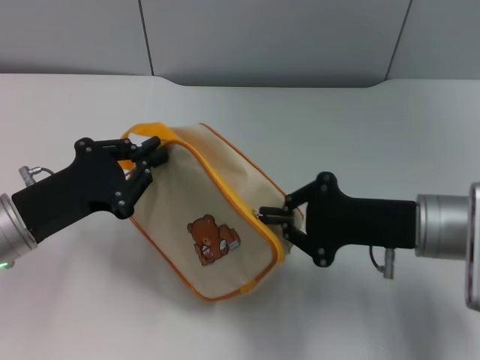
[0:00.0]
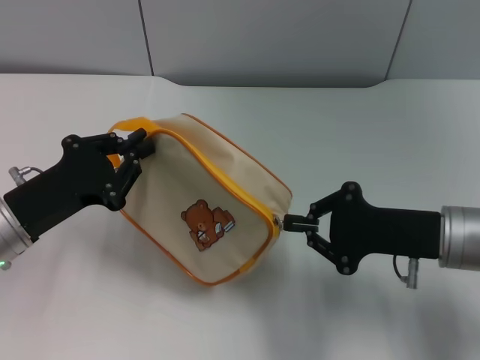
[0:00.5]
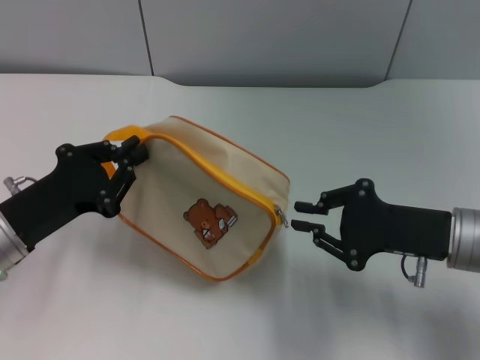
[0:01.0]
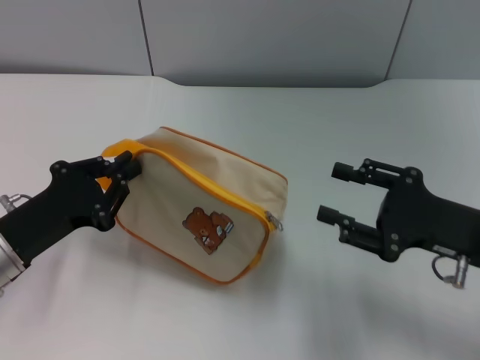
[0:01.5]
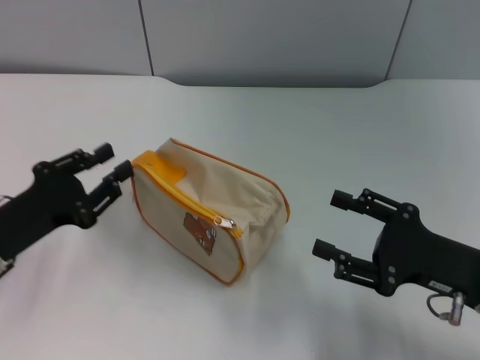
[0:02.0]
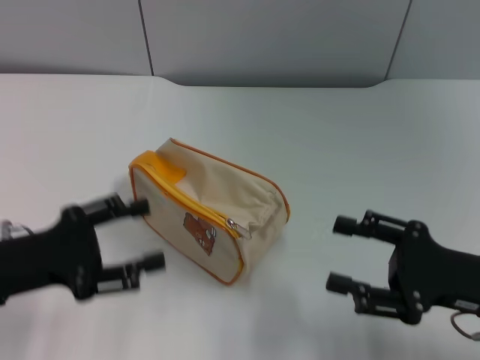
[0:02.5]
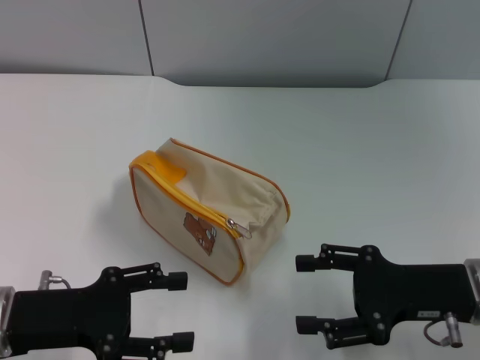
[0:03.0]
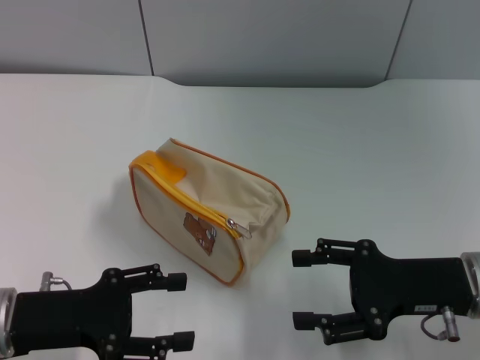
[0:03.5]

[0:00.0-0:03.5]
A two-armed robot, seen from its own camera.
0:00.0 to 0:02.0: The right gripper is displaced backward and to the right by some 10 cm, and opens.
0:02.0 to 0:03.5: The left gripper opens up.

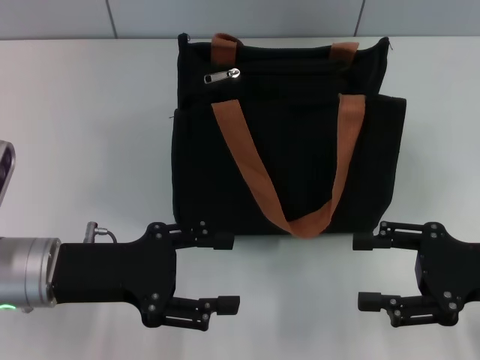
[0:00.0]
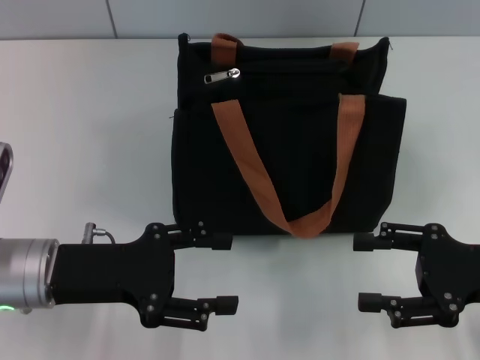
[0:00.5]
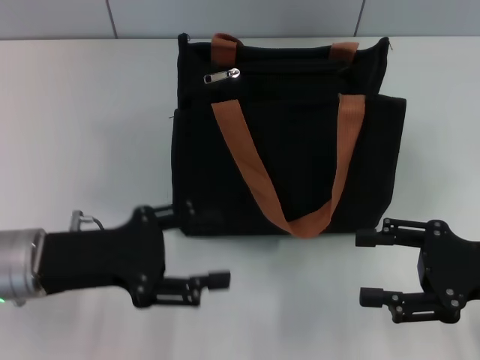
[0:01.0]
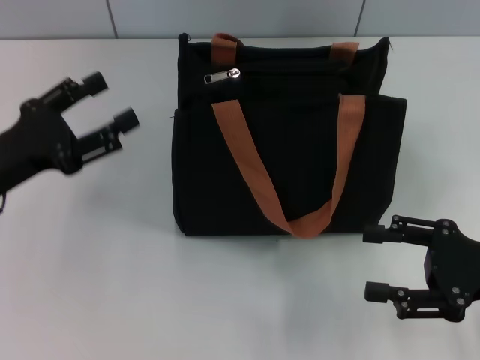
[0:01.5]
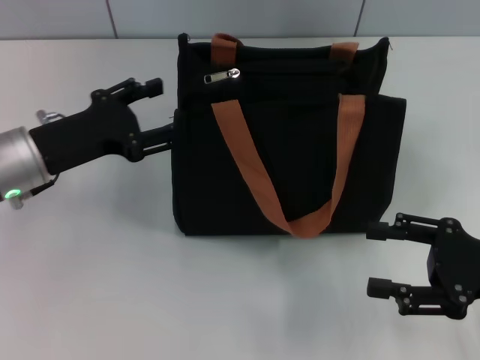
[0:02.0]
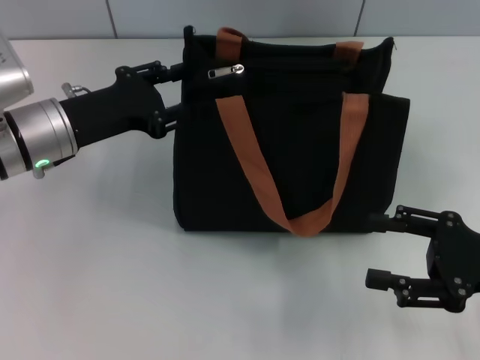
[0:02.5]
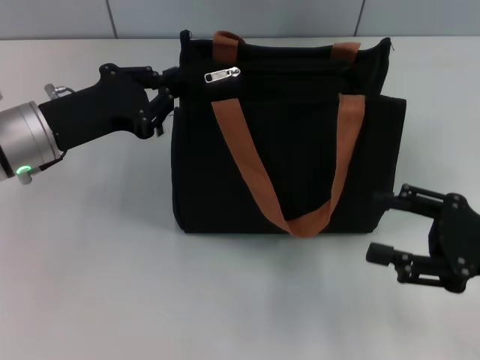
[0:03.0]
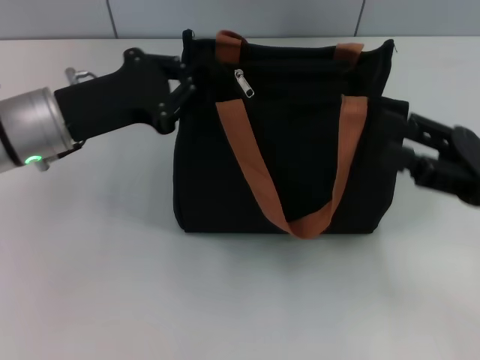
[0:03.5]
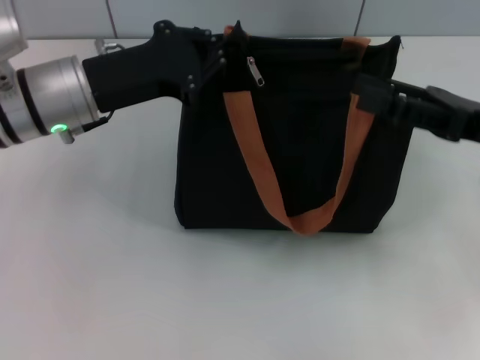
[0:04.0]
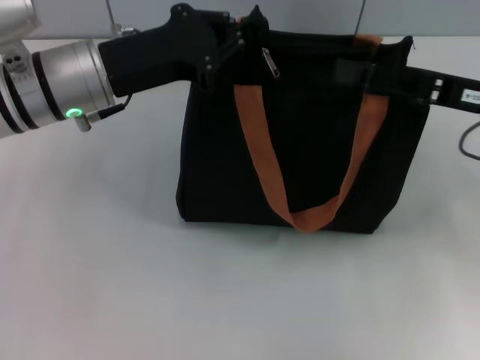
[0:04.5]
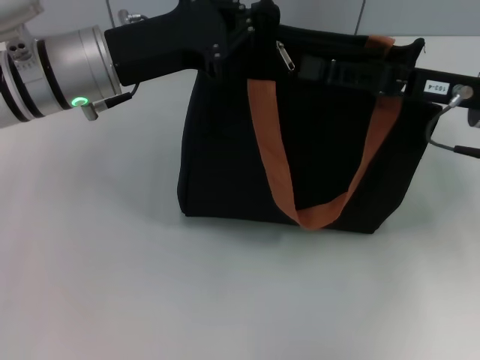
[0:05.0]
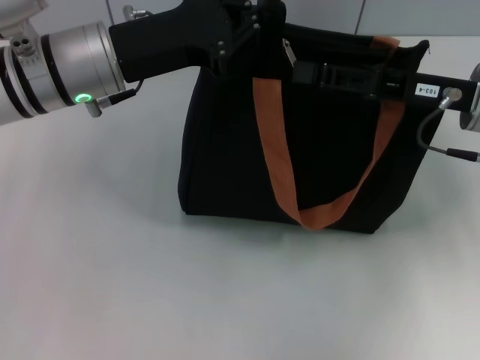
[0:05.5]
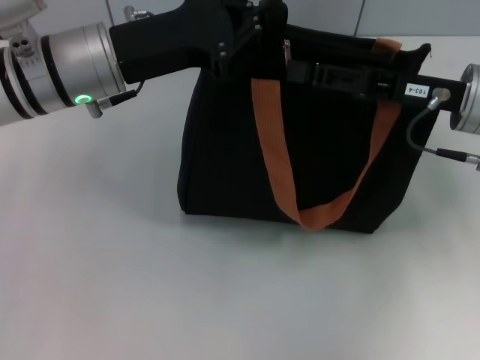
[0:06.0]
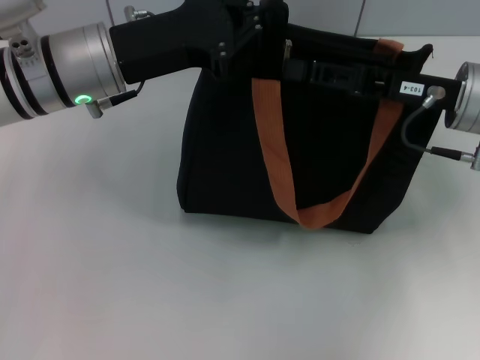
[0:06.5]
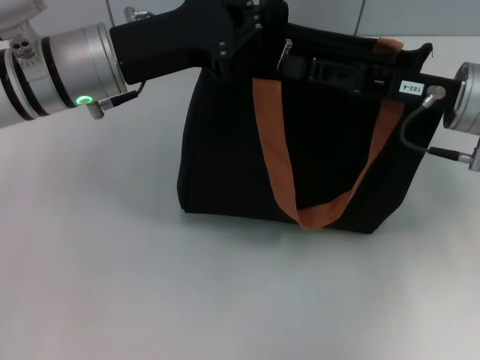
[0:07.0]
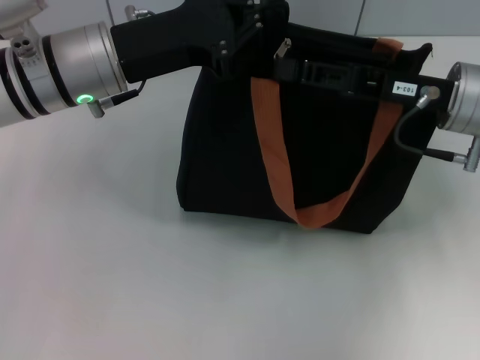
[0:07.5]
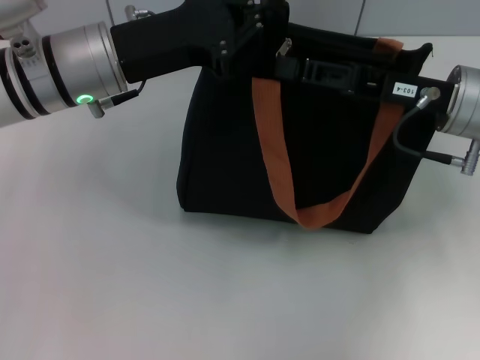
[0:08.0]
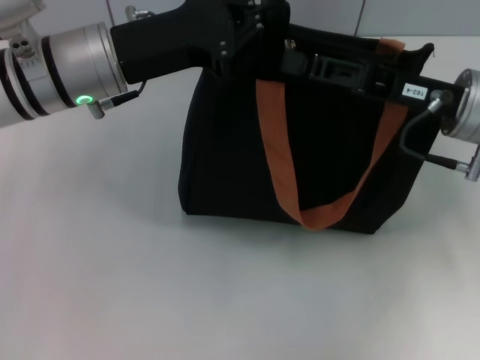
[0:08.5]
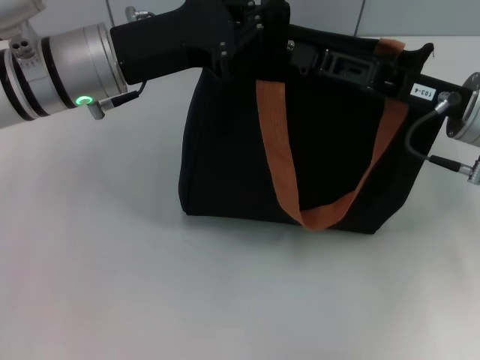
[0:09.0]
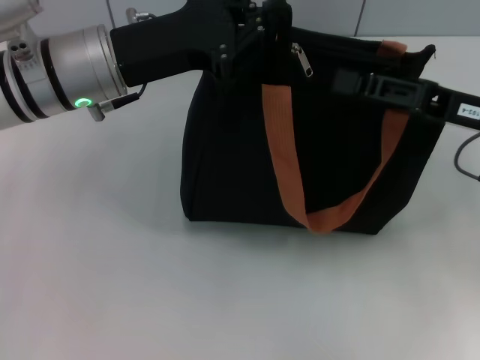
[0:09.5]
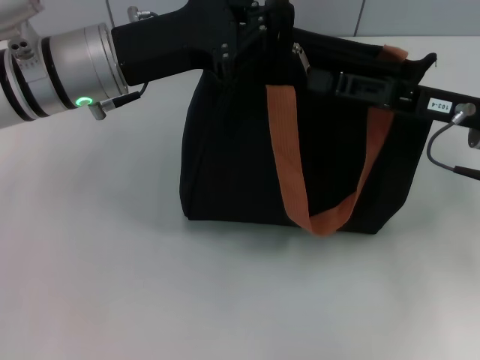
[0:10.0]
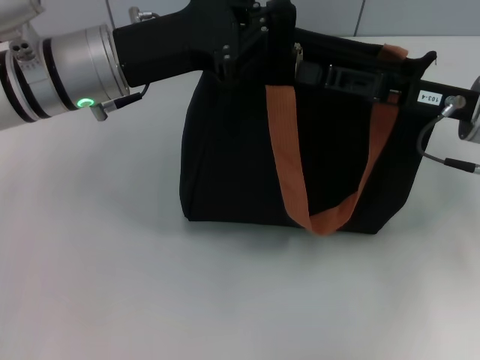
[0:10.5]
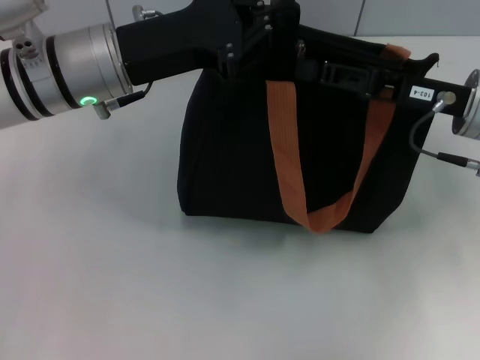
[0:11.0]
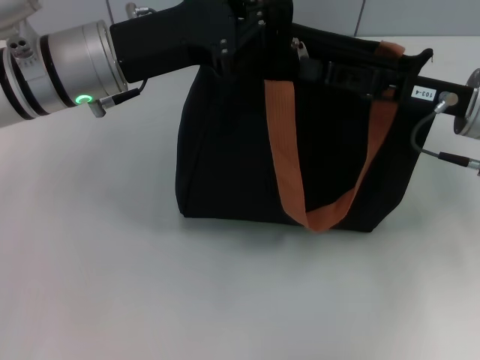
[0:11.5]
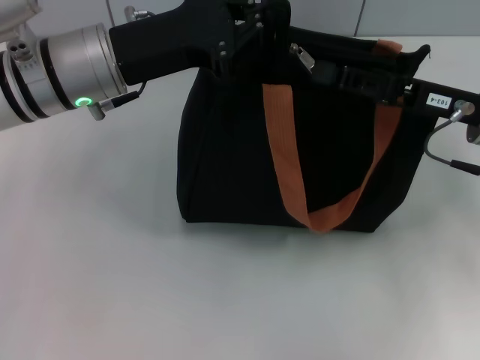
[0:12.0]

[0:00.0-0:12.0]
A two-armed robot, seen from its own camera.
0:00.0 to 0:02.0: The left gripper is displaced forward by roughly 10 cm.
0:02.0 to 0:04.0: The left gripper heads to the right and upward, covering about 10 cm, and closes its fingers. Meanwhile the right gripper is displaced forward and upward by approximately 10 cm.
0:04.0 to 0:06.0: The right gripper moves approximately 5 cm, and closes up.
0:06.0 to 0:08.0: The two grippers keep their place.
0:08.0 to 0:10.0: The grippers make only small movements.
0:10.0 to 0:12.0: The right gripper closes up.

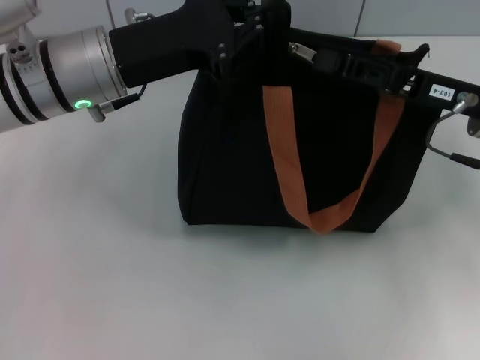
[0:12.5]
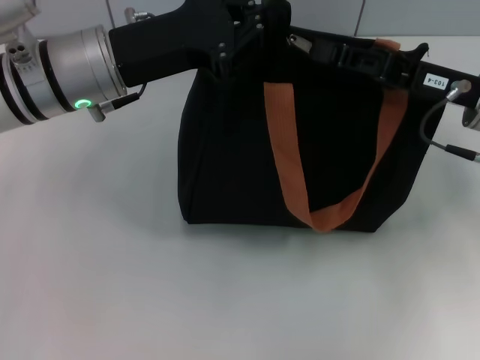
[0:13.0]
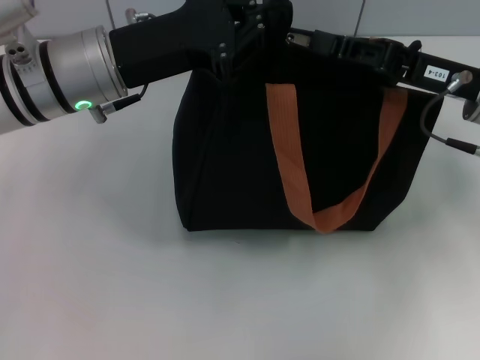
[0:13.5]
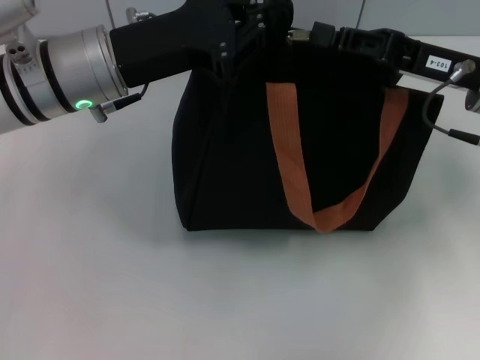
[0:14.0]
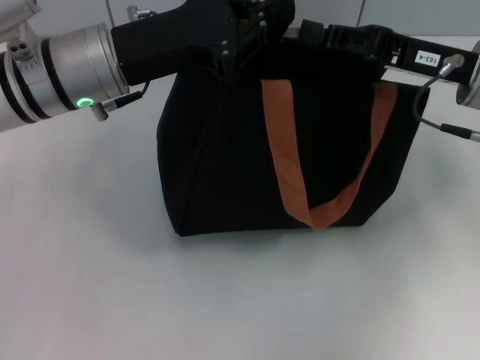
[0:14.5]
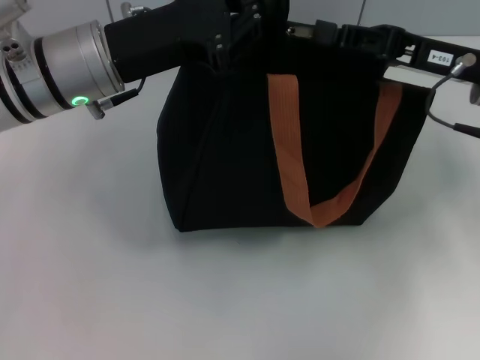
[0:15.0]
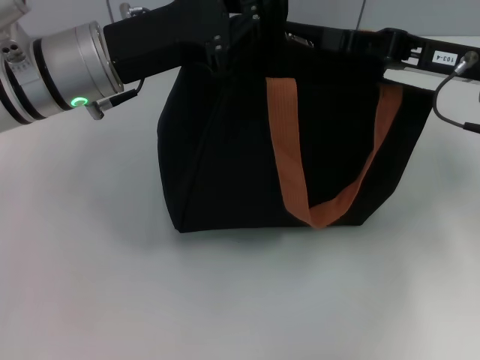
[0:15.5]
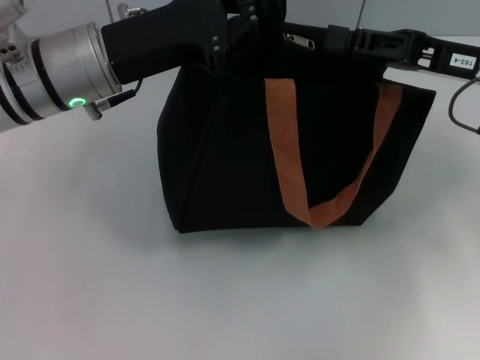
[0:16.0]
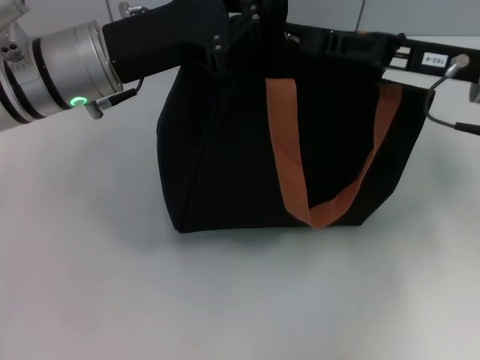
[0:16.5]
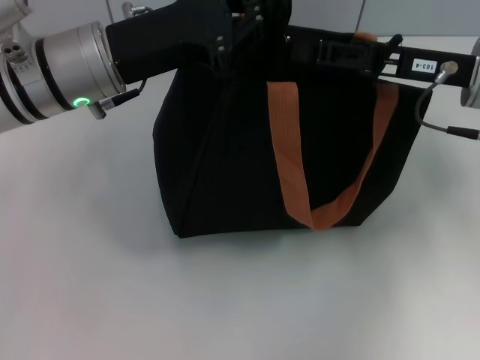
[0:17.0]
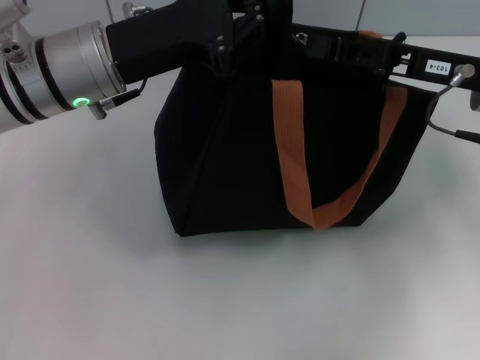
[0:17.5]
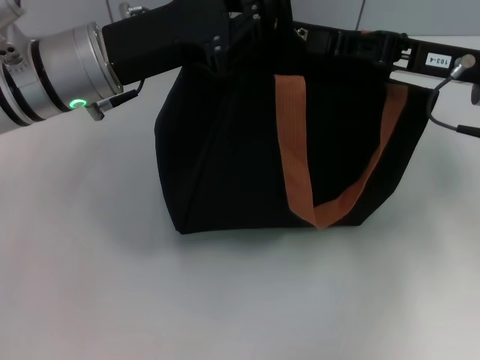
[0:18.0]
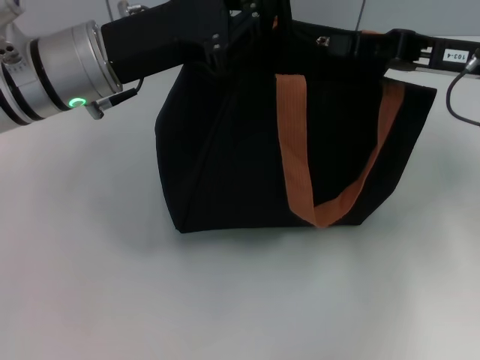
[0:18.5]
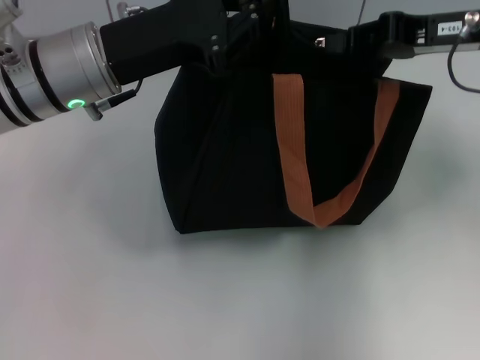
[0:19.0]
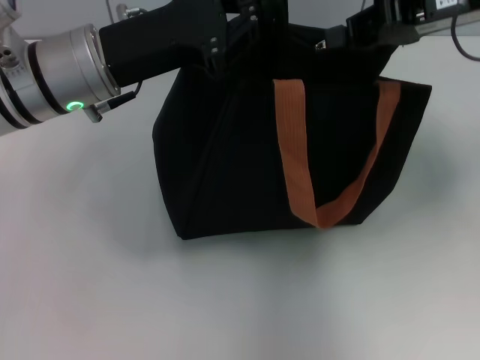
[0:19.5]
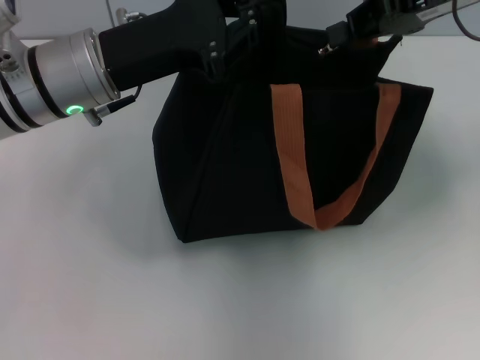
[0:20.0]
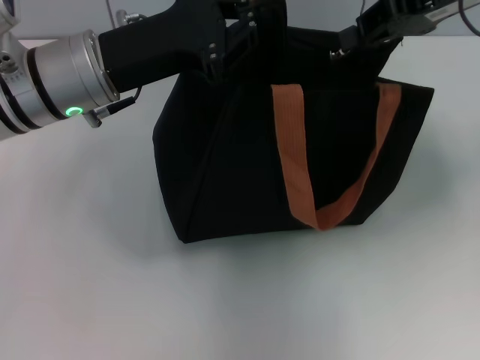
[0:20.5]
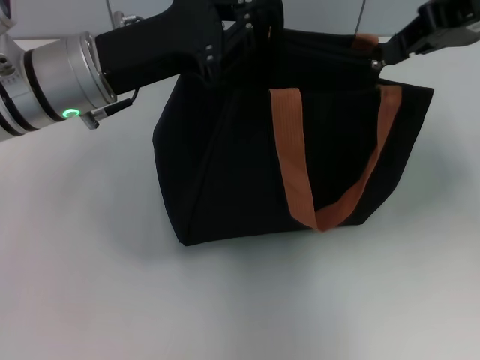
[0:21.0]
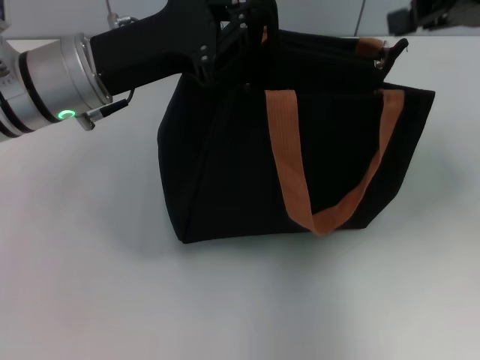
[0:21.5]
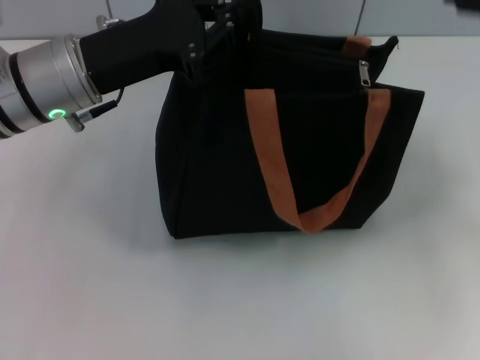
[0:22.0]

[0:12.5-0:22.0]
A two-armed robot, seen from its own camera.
Step, 0:12.5 to 0:21.0: Pull up the zipper with your right hand.
0:12.5 to 0:14.5: The grippers make only small movements.
0:14.5 to 0:16.5: The right gripper opens up.
0:16.5 to 0:18.0: The right gripper closes up.
0:18.0 to 0:20.0: The right gripper is displaced upward and forward by approximately 10 cm.
0:20.0 to 0:22.0: The right gripper shifts roughly 15 cm to the right and backward, and opens its fingers.
